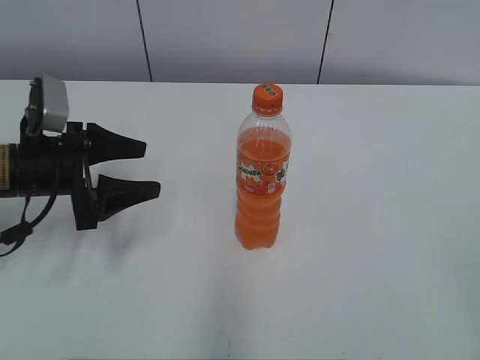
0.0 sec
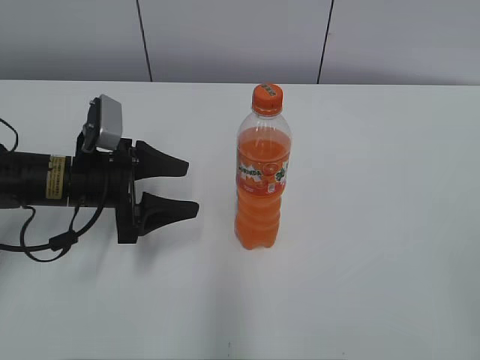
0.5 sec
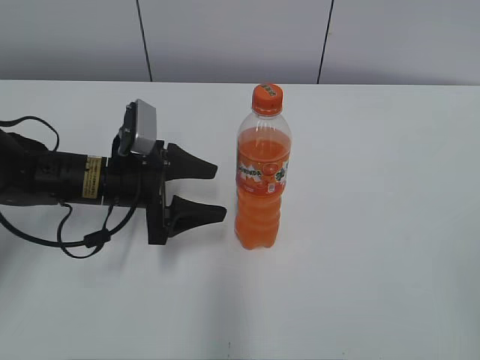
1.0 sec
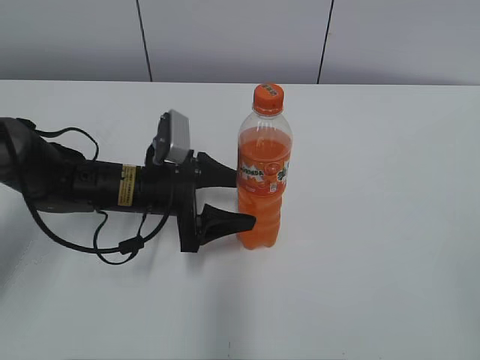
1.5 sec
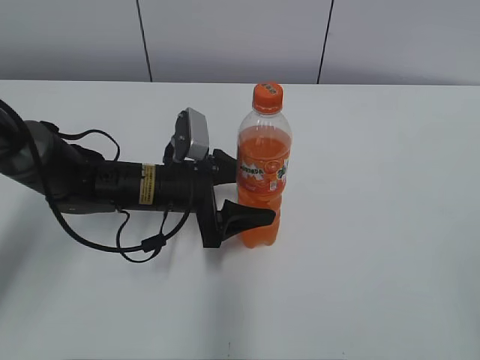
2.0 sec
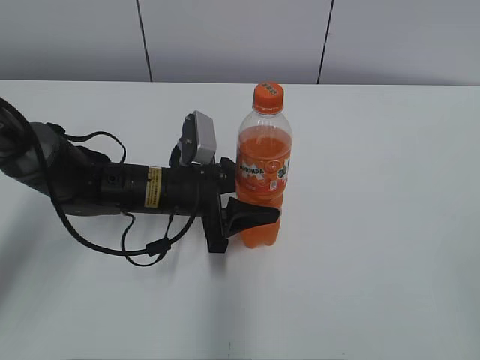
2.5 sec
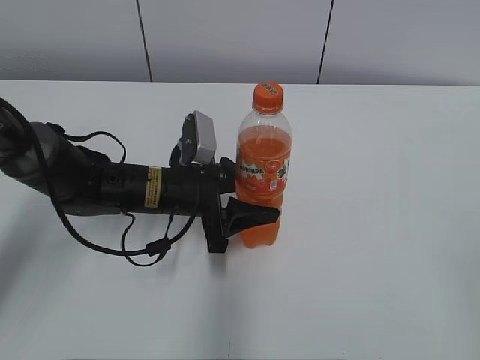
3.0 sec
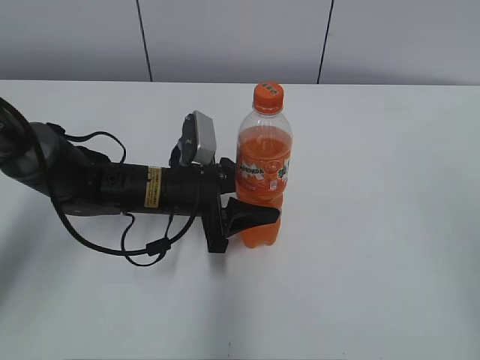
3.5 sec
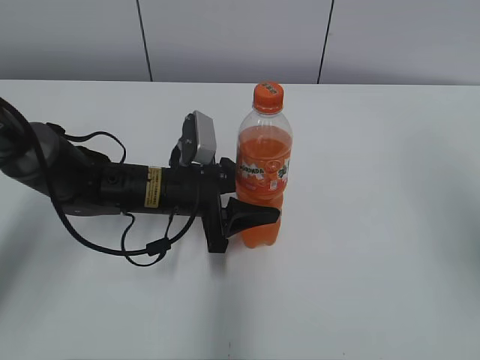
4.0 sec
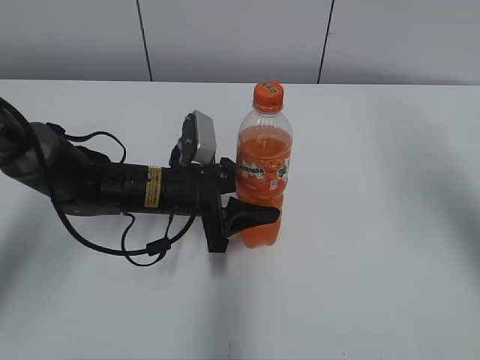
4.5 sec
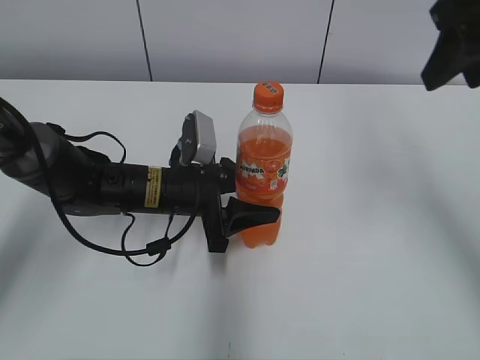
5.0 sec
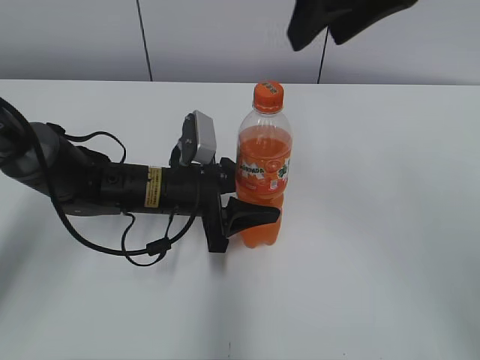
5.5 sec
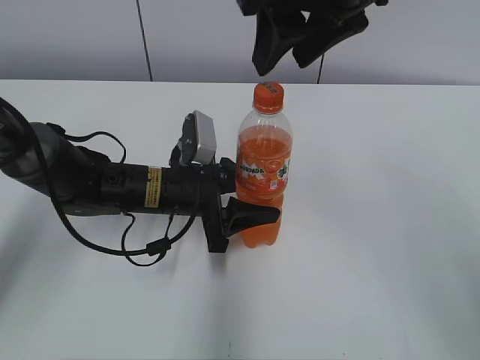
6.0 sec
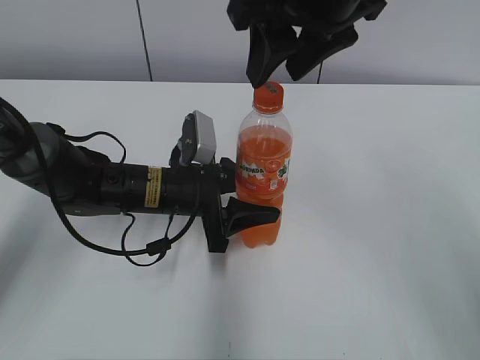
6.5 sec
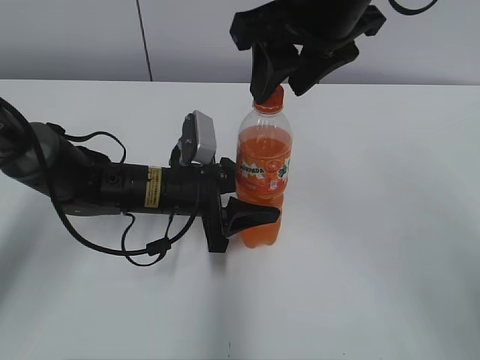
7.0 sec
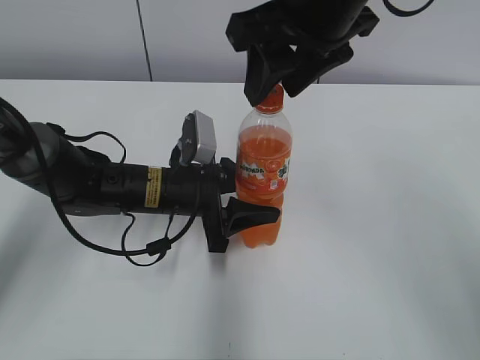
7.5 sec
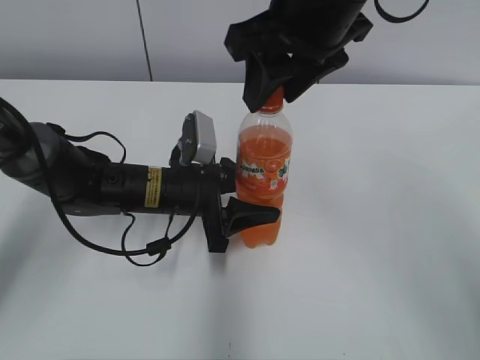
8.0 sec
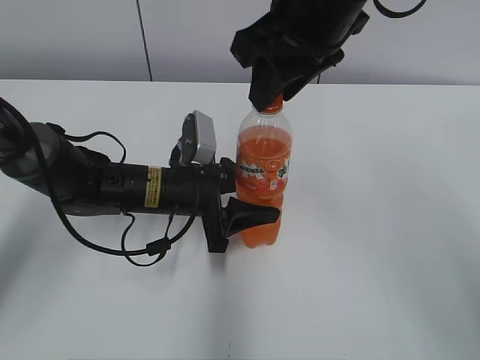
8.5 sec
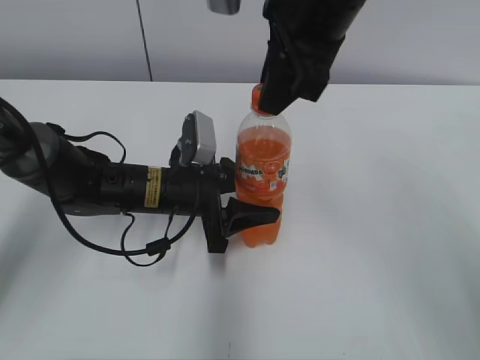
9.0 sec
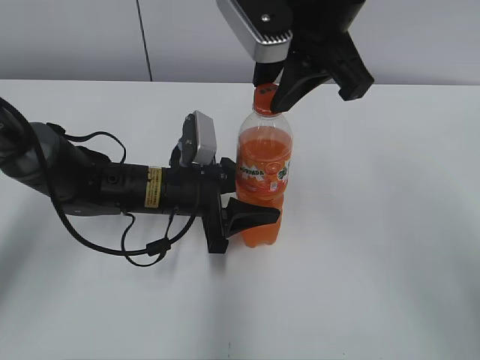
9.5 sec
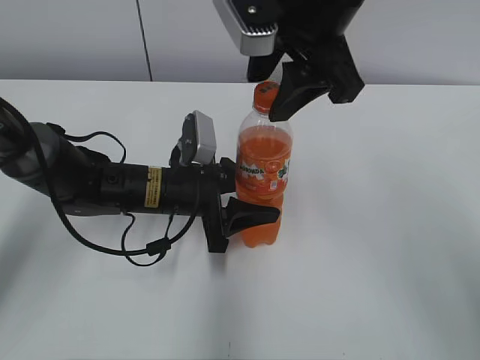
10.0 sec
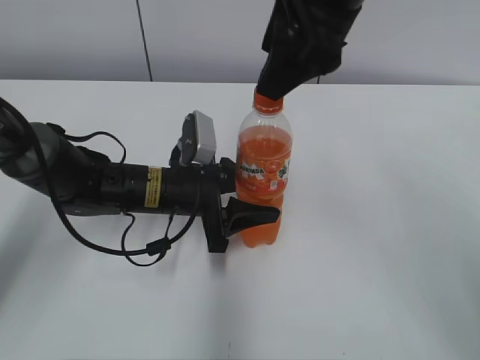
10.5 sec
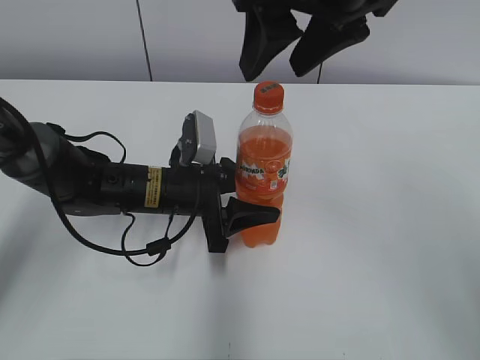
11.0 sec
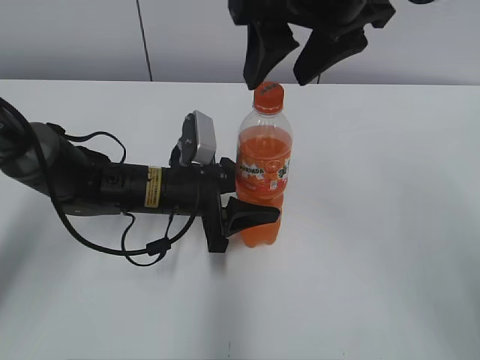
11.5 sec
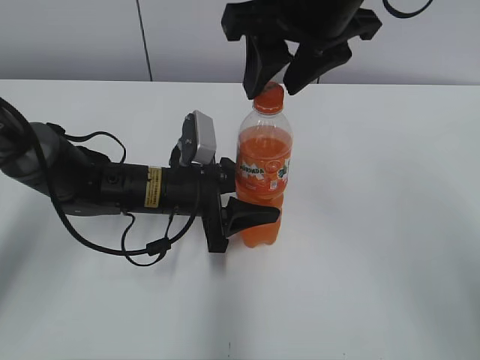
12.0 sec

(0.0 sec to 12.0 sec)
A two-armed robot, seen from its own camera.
Step, 0.0 sec - 3.0 sec: Grab the Mirinda with the left hand.
0.0 sec - 2.0 sec: The left gripper heads to the right and downward, covering some 15 cm.
2.0 sec - 4.0 sec: The left gripper closes its fingers, while the right gripper shifts about 20 cm forward and upward, and closes its fingers.
4.0 sec - 6.0 sec: The right gripper shifts approximately 25 cm to the left and forward.
6.0 sec - 8.0 sec: There are only small adjustments of the grippers.
8.0 sec - 10.0 sec: The right gripper closes, then opens again.

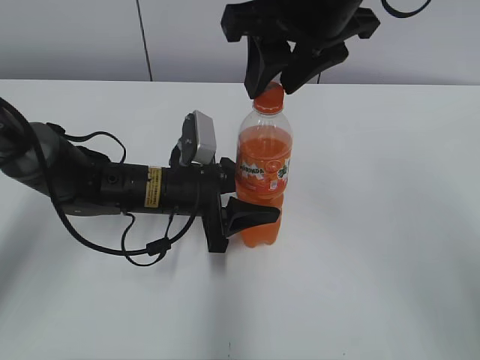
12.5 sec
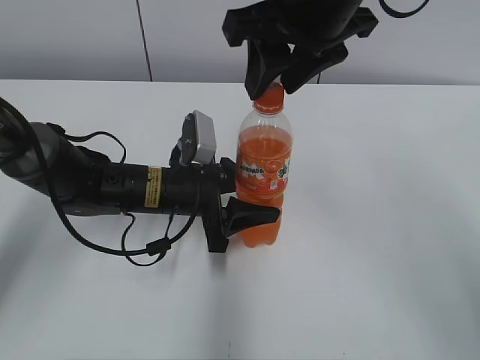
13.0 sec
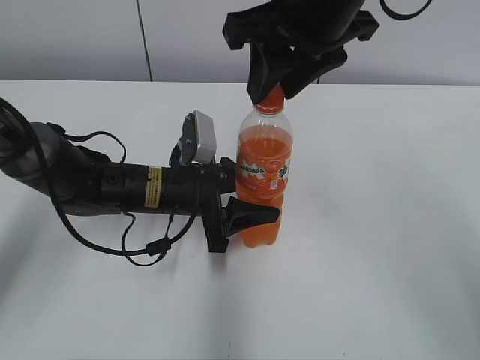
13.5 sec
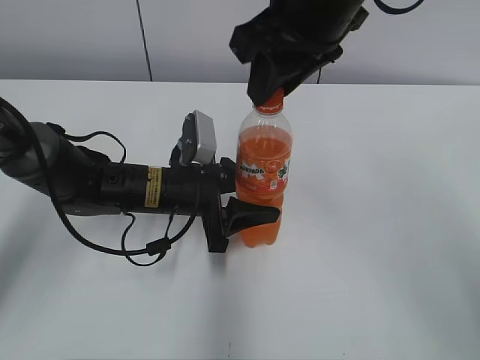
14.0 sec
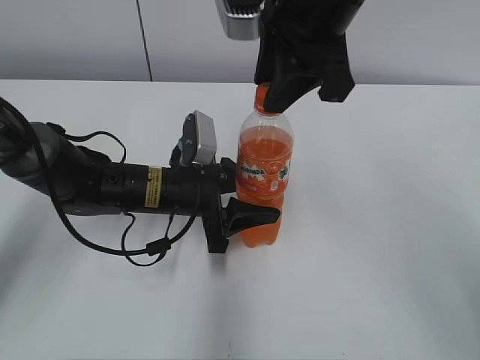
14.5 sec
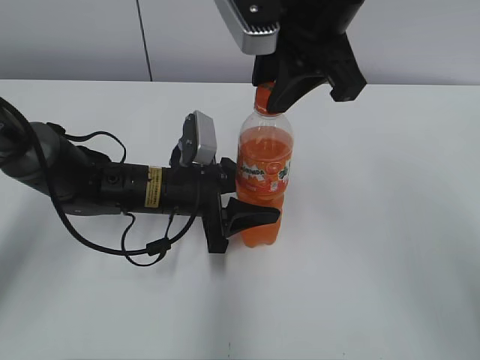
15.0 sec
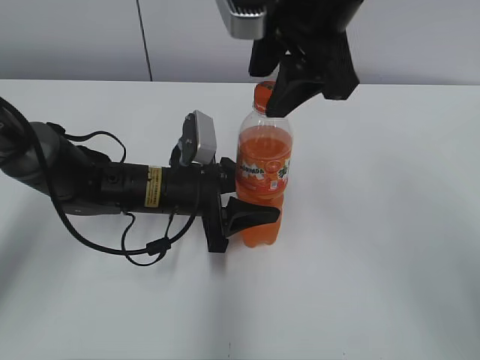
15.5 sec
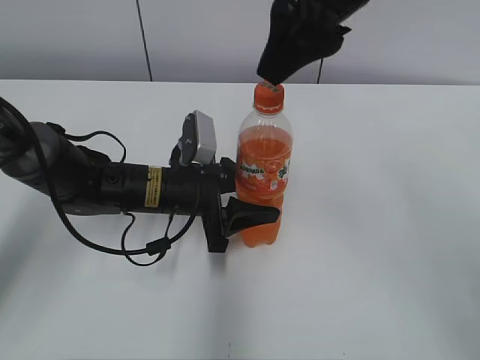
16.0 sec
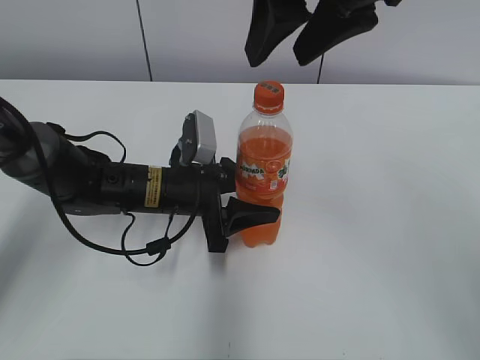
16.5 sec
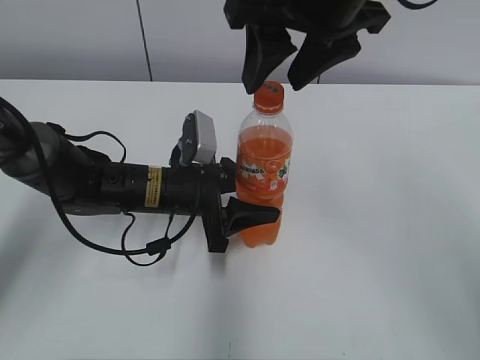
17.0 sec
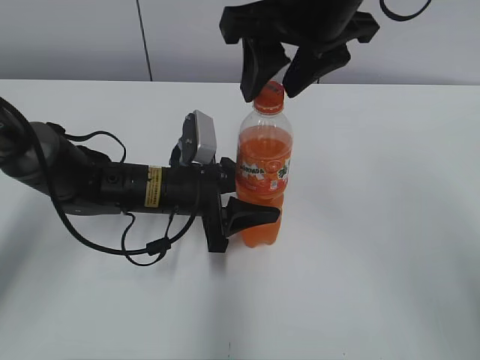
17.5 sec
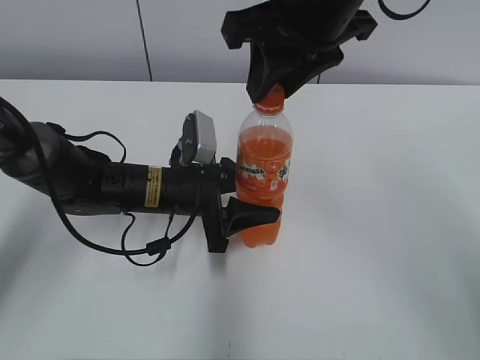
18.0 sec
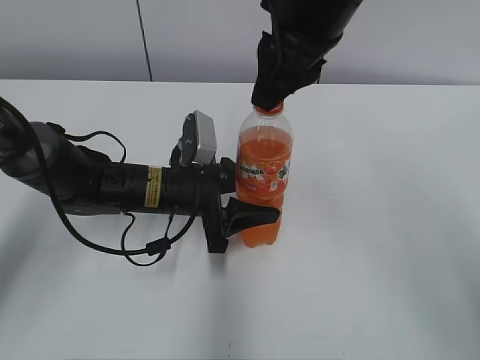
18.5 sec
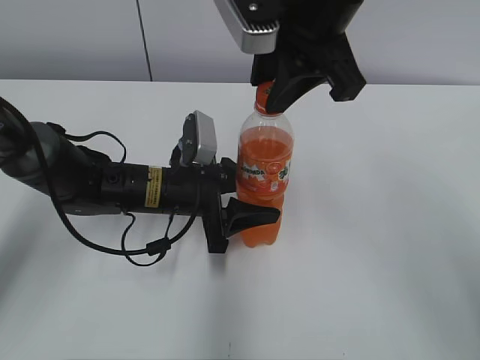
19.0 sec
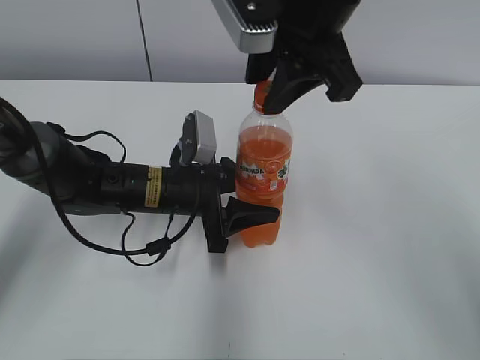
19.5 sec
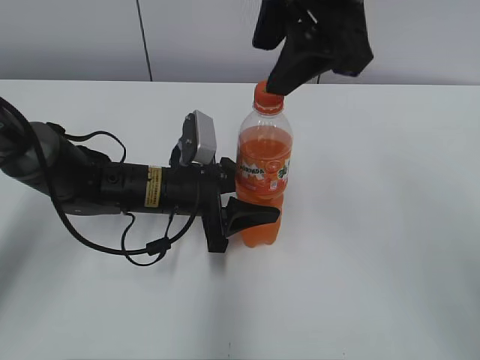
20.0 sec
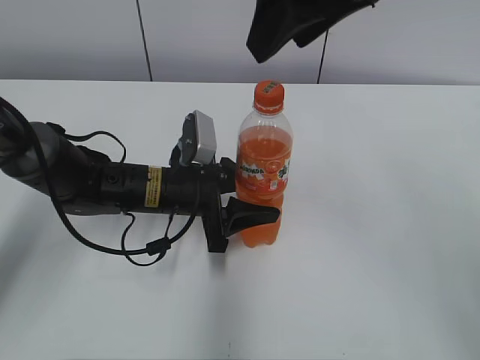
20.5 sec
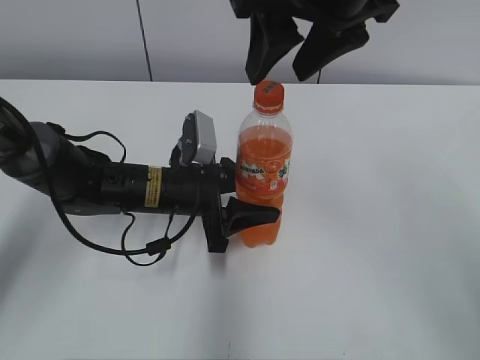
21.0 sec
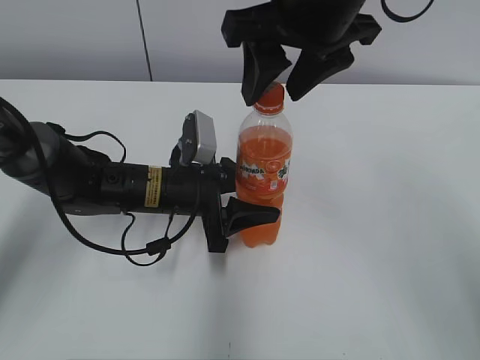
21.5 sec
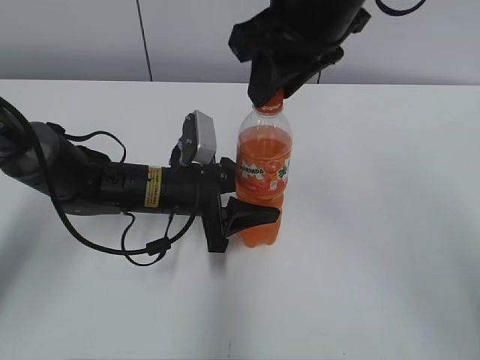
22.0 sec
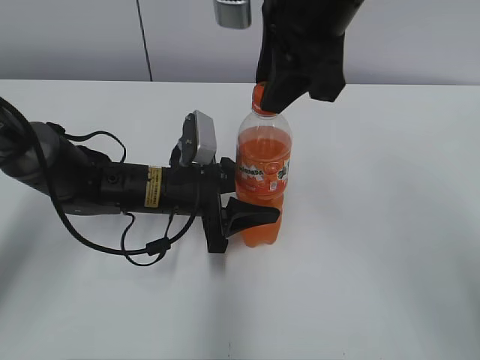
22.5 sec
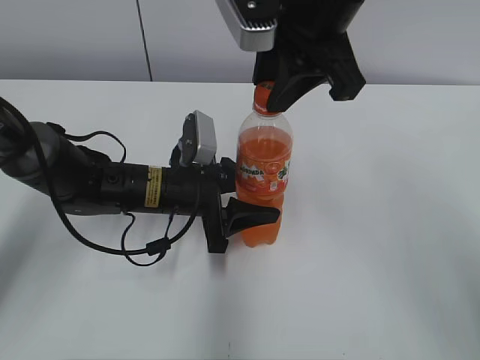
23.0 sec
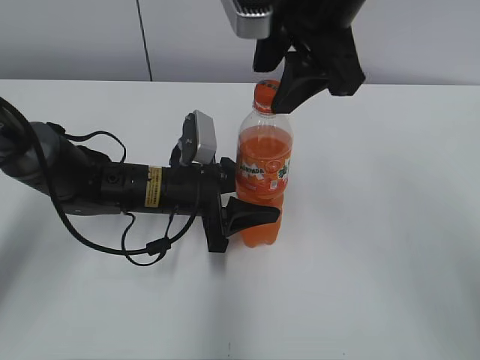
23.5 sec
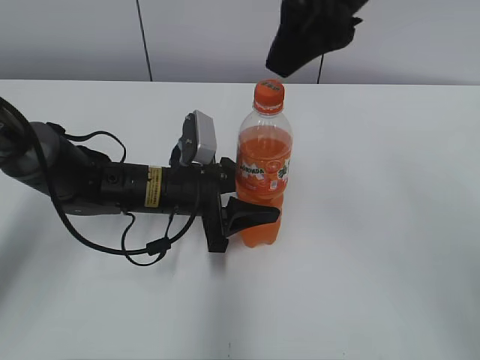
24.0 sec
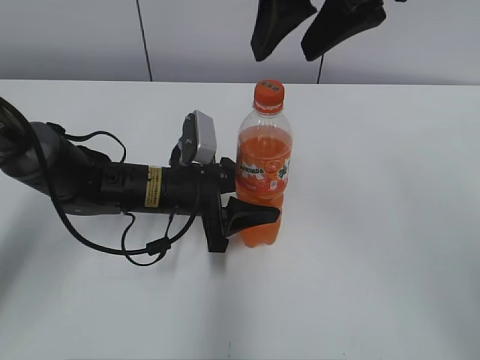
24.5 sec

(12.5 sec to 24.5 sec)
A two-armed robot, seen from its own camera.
14.5 sec - 16.5 sec: The right gripper ends up some 5 cm from where it was, and opens up.
16.5 sec - 18.5 sec: The right gripper closes.
18.5 sec - 20.5 sec: The right gripper goes approximately 5 cm upward, and opens.
20.5 sec - 22.5 sec: The right gripper shifts about 5 cm downward, and closes its fingers.
22.5 sec - 24.5 sec: The right gripper shifts by some 5 cm, and opens its fingers.

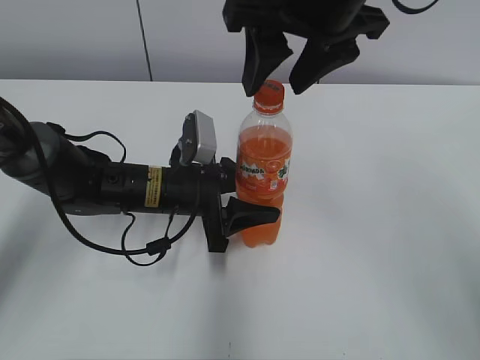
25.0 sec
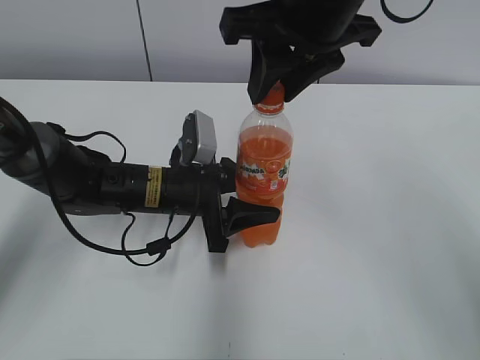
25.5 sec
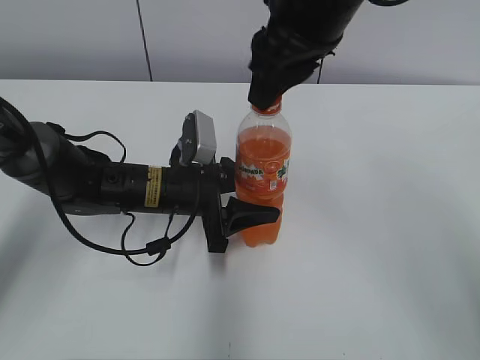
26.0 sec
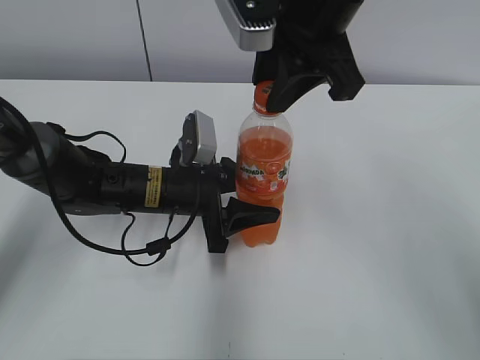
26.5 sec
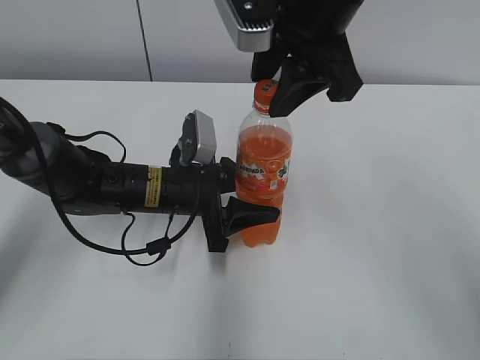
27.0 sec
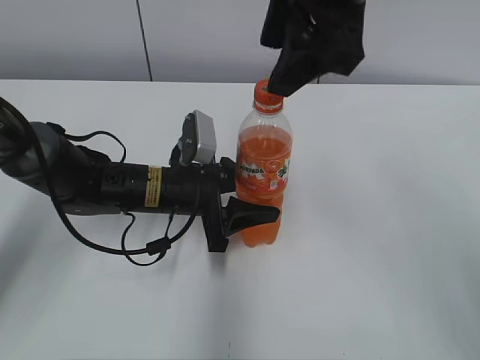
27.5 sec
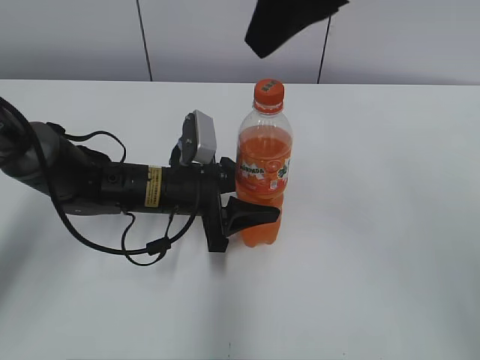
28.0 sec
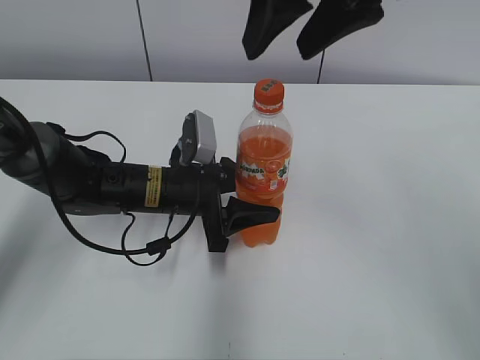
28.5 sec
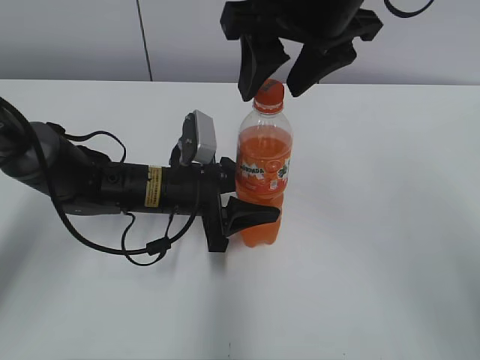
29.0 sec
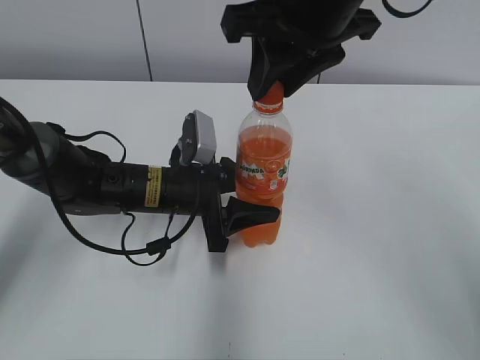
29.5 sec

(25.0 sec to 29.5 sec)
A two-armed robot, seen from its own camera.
25.0 sec - 27.0 sec: The right gripper closes, then opens again.
27.0 sec - 29.5 sec: The right gripper closes.
